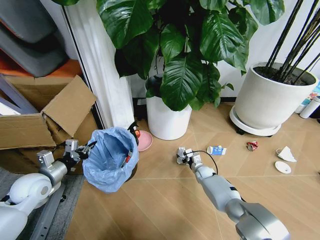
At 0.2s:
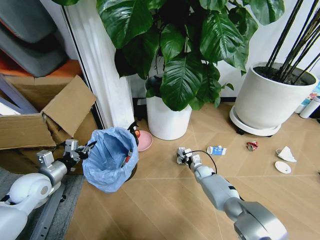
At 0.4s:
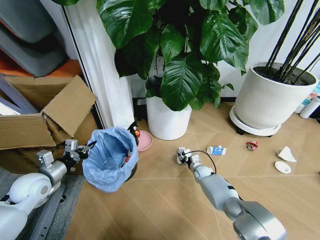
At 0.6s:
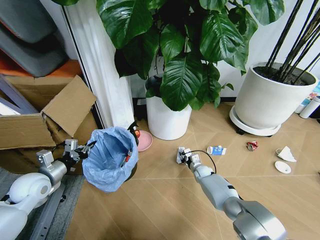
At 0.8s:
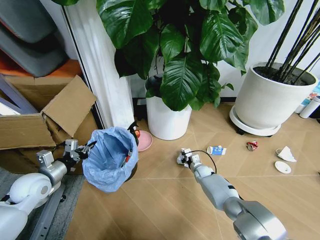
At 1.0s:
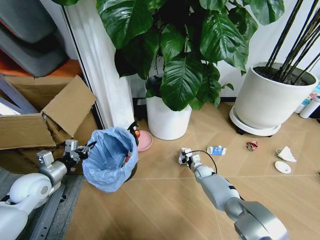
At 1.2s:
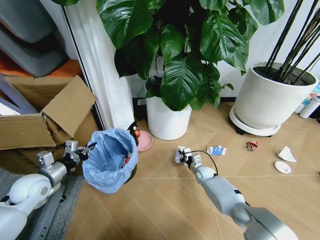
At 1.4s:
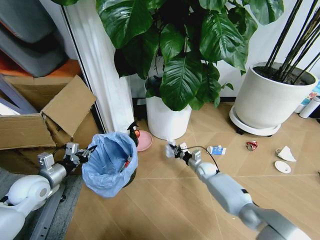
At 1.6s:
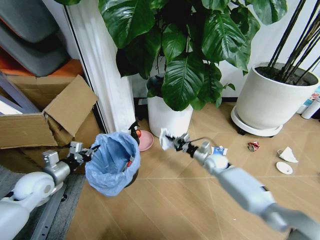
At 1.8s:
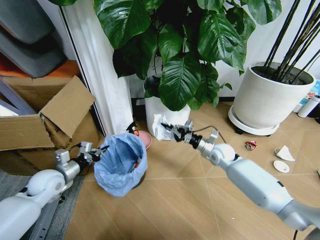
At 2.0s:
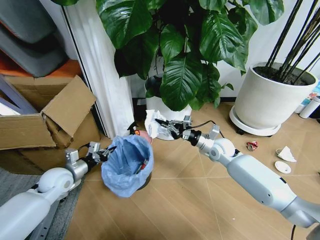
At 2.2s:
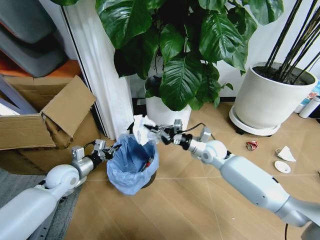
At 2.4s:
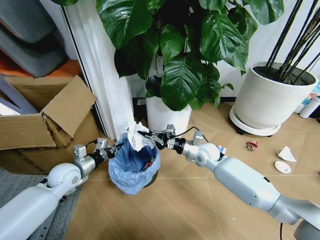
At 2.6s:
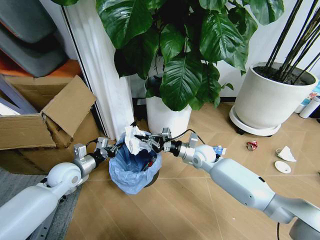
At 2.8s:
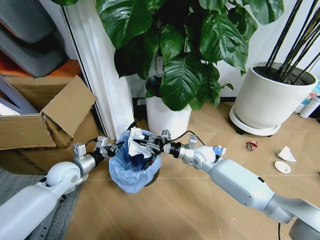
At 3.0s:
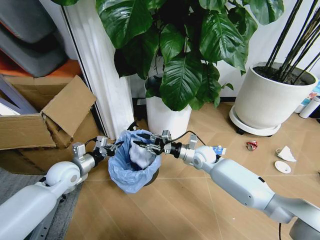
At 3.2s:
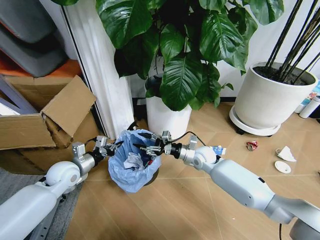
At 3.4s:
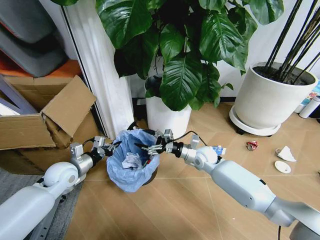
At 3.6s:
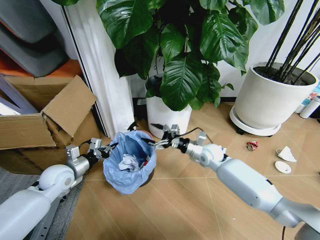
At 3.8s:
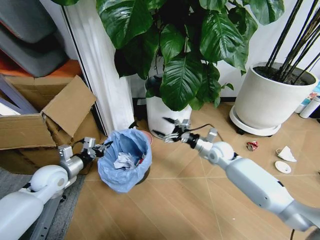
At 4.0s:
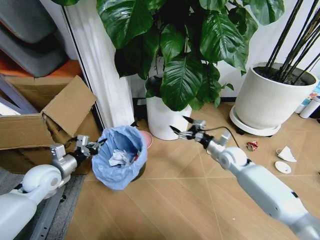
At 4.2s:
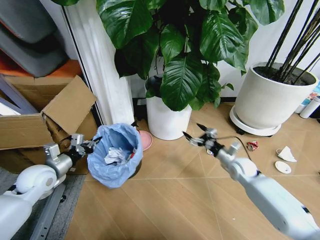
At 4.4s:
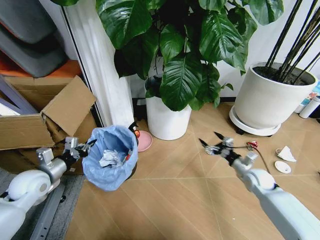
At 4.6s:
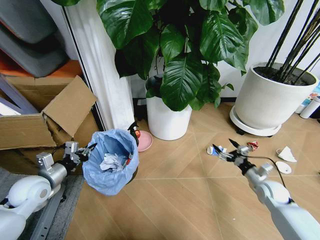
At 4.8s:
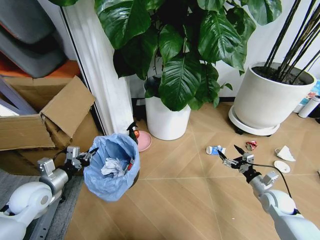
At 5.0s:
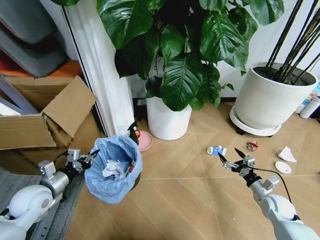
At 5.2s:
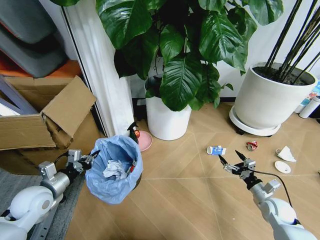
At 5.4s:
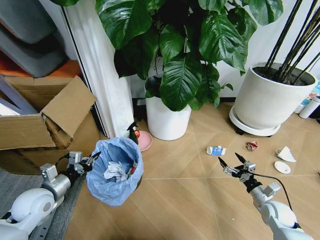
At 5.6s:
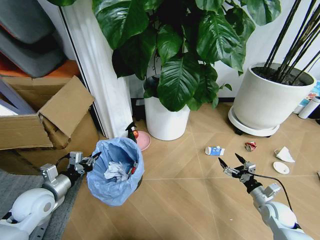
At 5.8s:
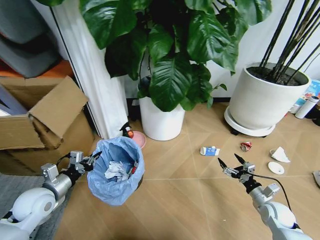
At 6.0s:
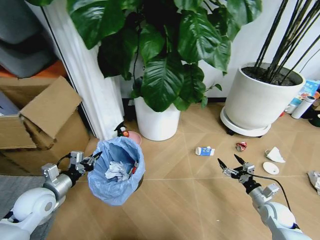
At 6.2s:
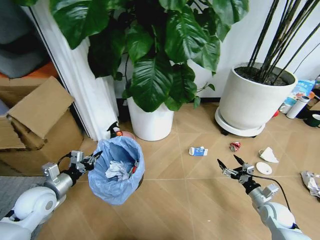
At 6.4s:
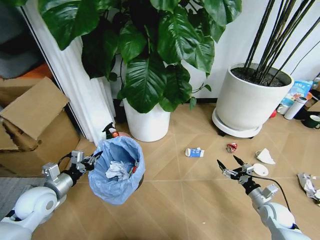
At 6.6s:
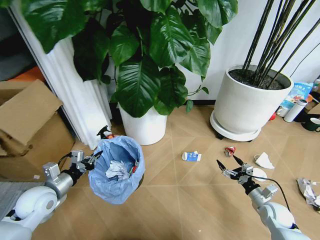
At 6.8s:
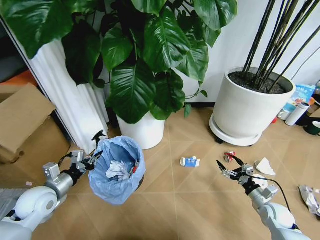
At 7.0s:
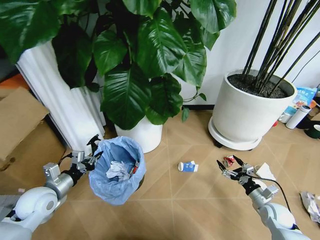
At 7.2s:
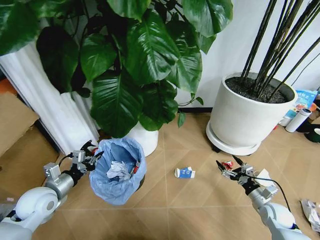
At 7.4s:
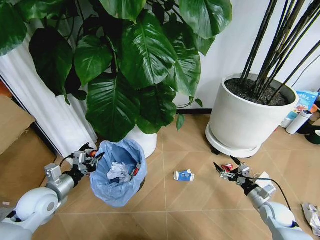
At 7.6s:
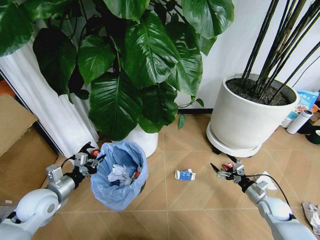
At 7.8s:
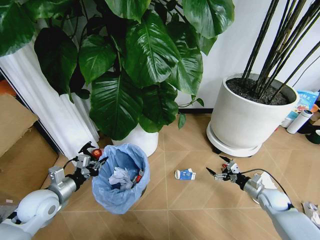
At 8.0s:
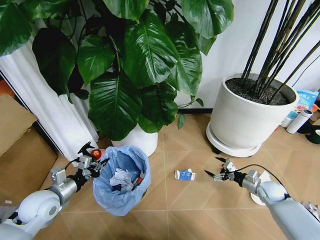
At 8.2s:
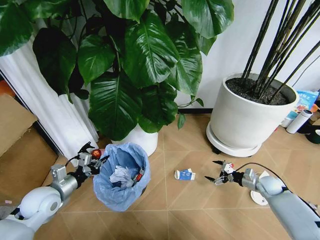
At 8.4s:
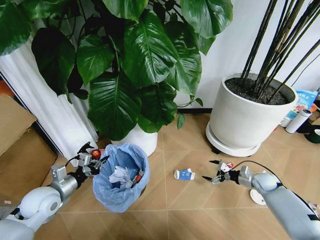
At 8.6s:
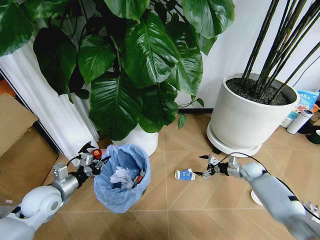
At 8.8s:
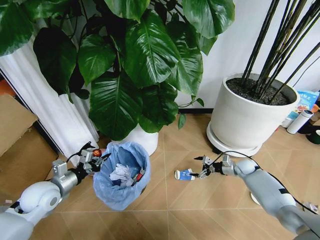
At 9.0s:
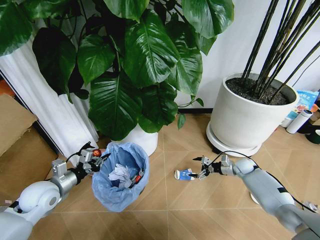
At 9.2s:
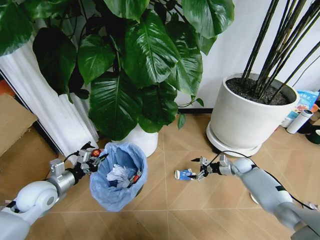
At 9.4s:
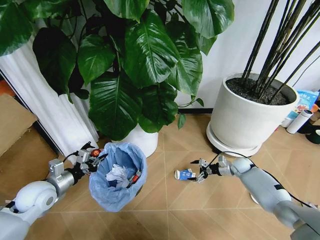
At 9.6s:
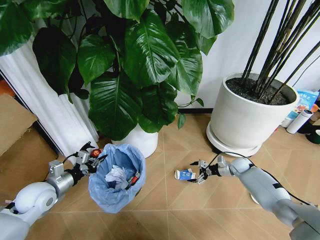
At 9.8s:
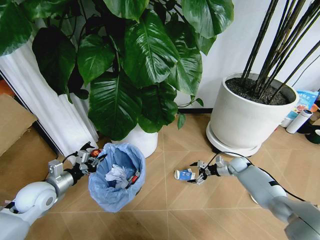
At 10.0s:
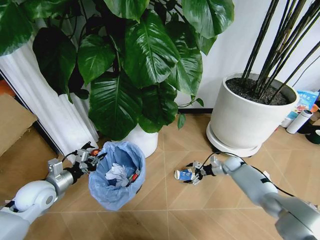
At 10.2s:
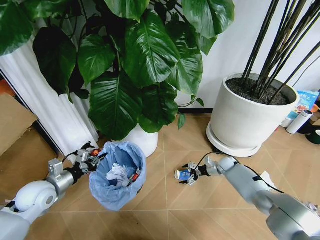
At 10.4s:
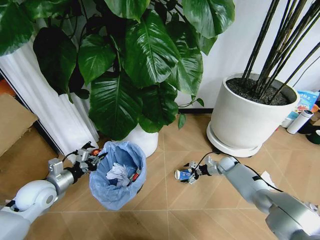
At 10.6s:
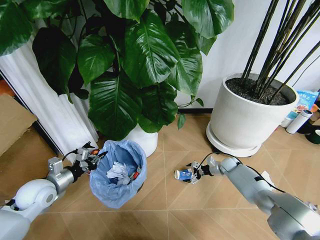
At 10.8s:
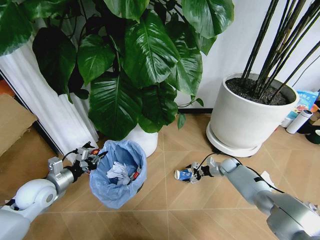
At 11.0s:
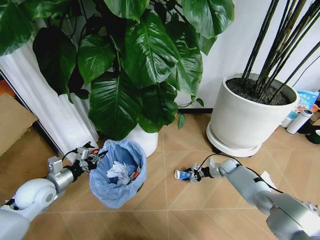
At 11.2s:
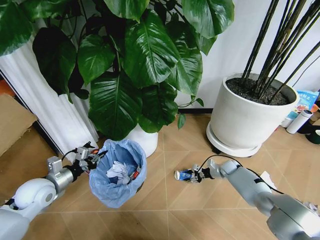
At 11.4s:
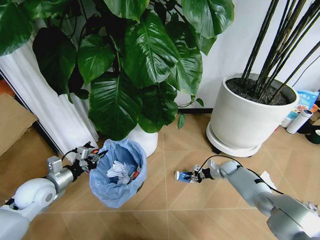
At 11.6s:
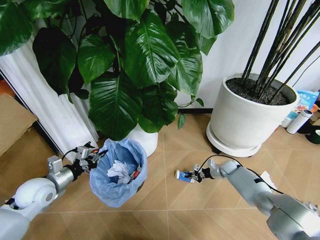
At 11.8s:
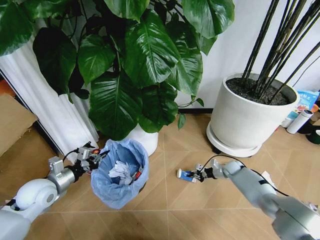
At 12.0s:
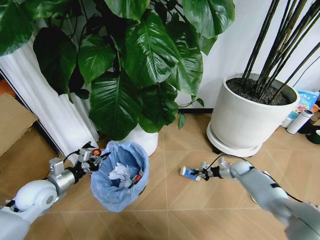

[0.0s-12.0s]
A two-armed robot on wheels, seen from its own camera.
Task of the whole recording: Pick up the trash bin and place the garbage on the floor into it.
0.0s to 1.6s: The right gripper shifts some 15 cm upward, and closes up.
1.6s to 3.0s: The left gripper heads to the right, covering some 5 cm. Meanwhile the right gripper is displaced to the left and upward by about 10 cm.
3.0s to 4.4s: The left gripper heads to the left, covering some 5 cm. The right gripper shifts about 25 cm to the right and backward, and opens up.
4.4s to 6.0s: The left gripper shifts by some 5 cm, while the right gripper travels backward and downward by some 15 cm.
7.6s to 9.0s: The right gripper moves forward, roughly 20 cm.
9.0s to 10.4s: The right gripper moves to the left, approximately 5 cm.
10.4s to 12.0s: The right gripper travels to the right by some 5 cm, and closes.

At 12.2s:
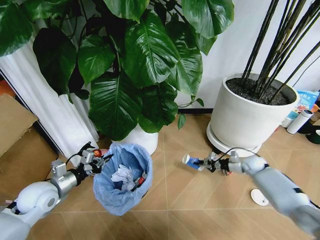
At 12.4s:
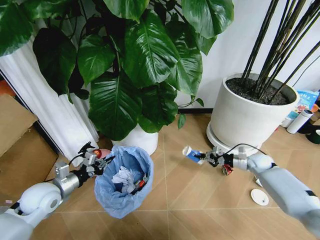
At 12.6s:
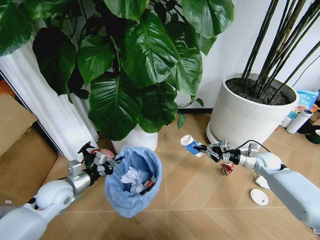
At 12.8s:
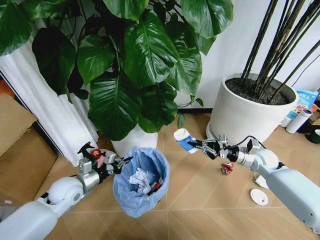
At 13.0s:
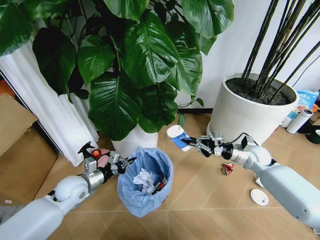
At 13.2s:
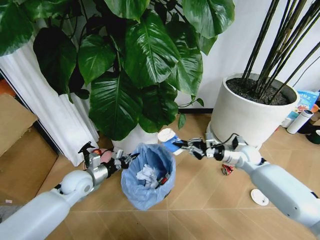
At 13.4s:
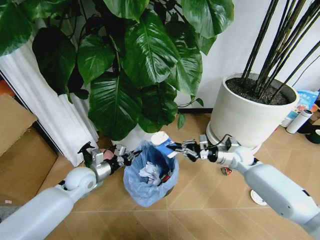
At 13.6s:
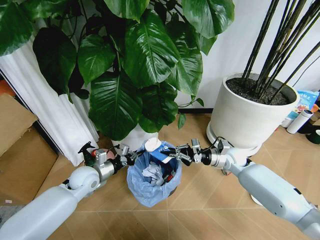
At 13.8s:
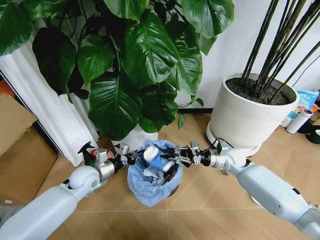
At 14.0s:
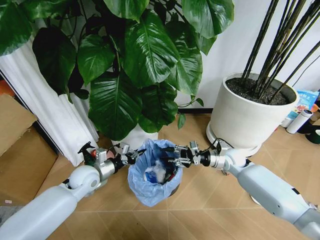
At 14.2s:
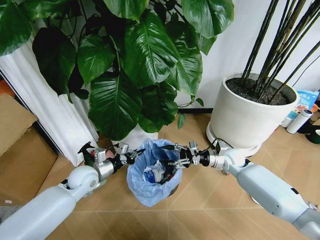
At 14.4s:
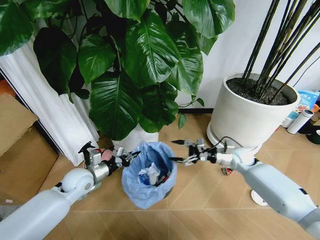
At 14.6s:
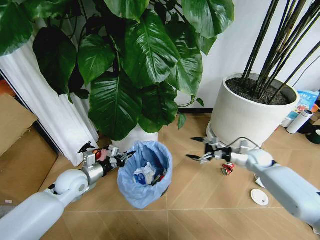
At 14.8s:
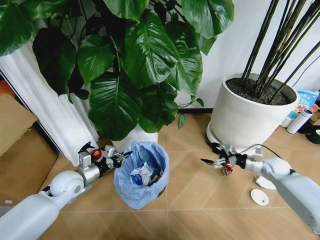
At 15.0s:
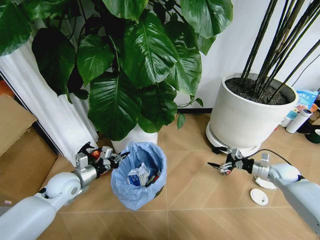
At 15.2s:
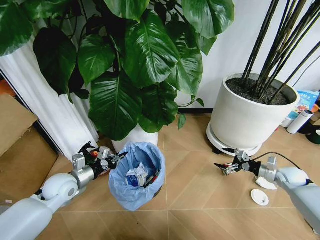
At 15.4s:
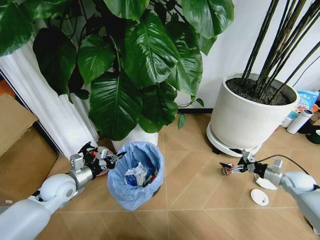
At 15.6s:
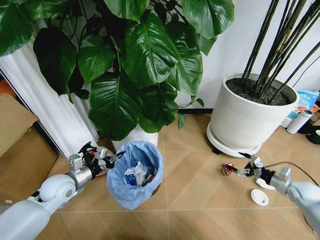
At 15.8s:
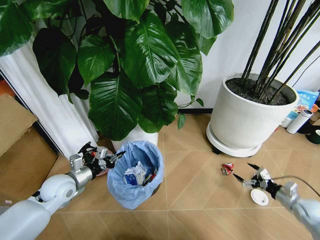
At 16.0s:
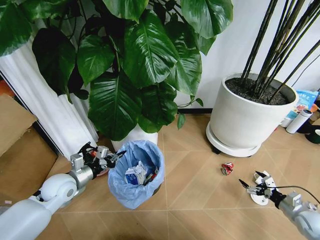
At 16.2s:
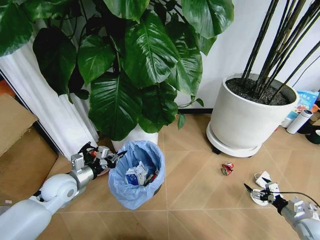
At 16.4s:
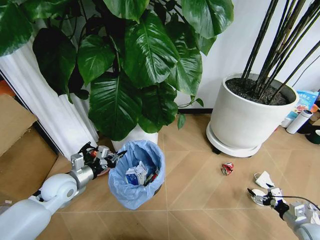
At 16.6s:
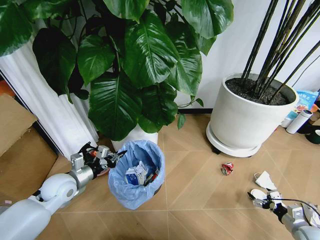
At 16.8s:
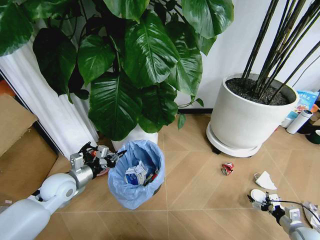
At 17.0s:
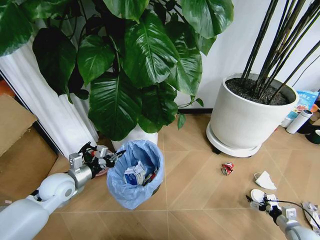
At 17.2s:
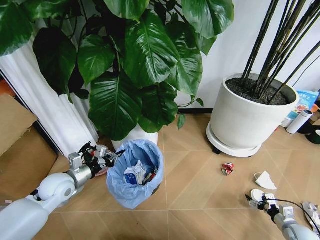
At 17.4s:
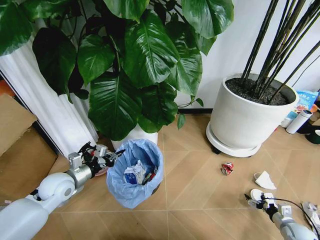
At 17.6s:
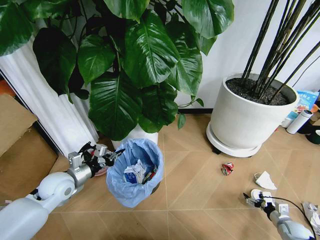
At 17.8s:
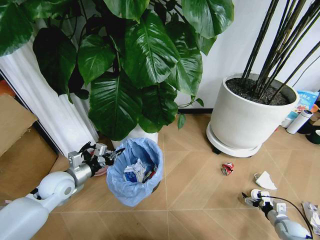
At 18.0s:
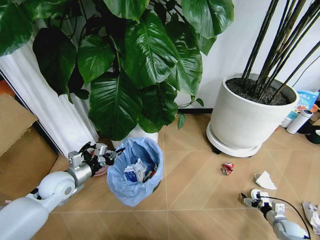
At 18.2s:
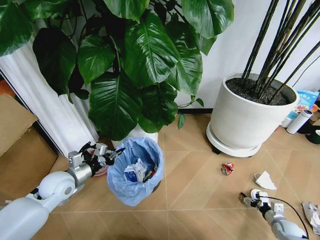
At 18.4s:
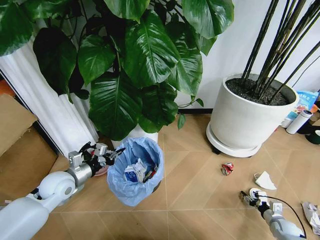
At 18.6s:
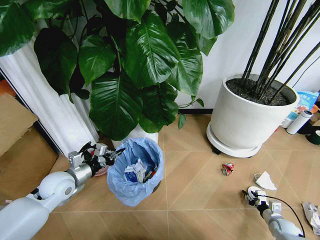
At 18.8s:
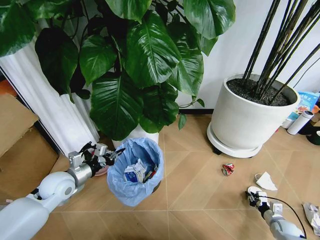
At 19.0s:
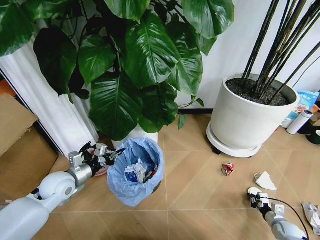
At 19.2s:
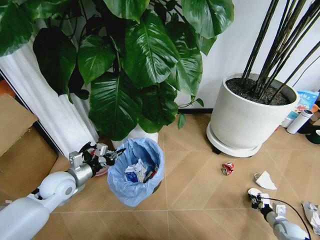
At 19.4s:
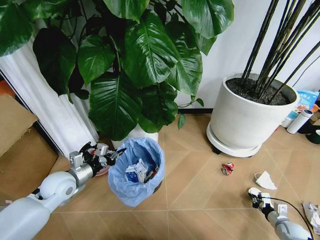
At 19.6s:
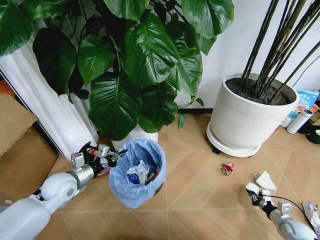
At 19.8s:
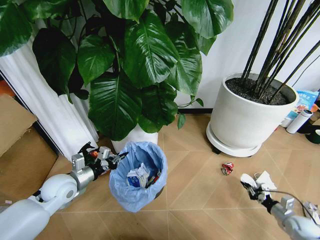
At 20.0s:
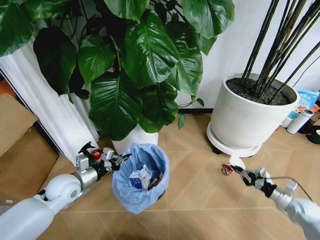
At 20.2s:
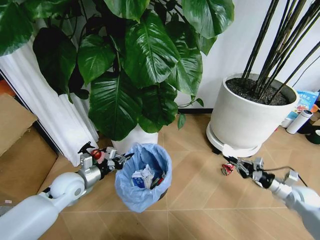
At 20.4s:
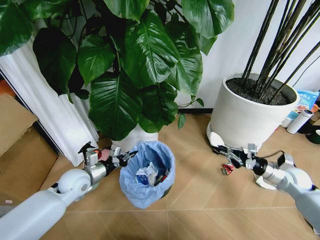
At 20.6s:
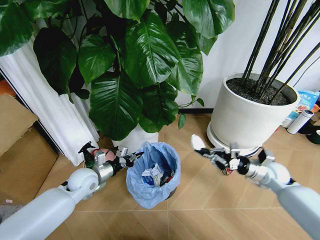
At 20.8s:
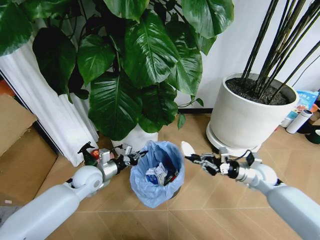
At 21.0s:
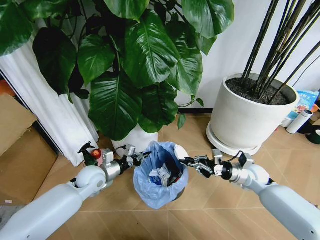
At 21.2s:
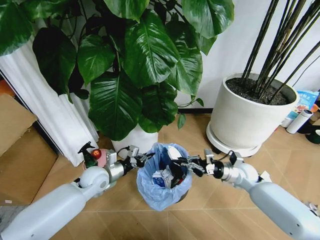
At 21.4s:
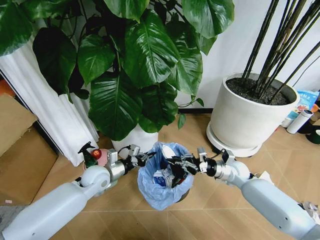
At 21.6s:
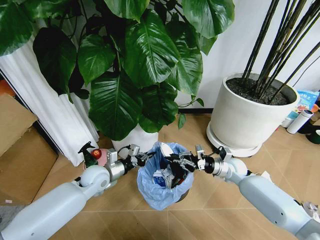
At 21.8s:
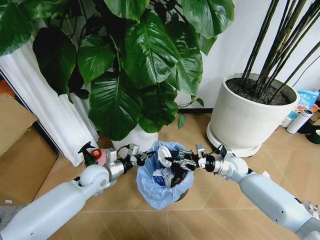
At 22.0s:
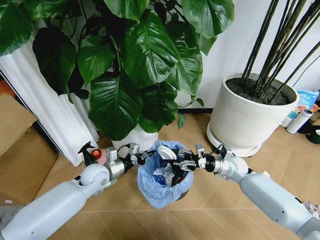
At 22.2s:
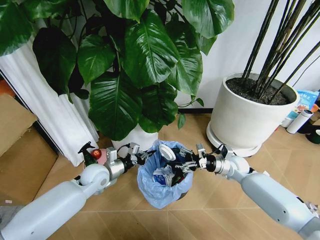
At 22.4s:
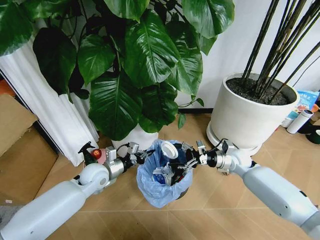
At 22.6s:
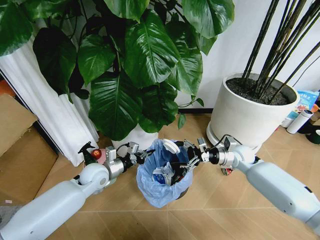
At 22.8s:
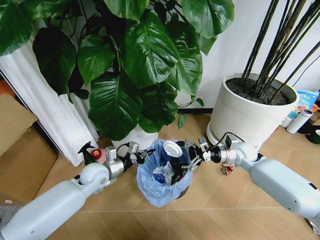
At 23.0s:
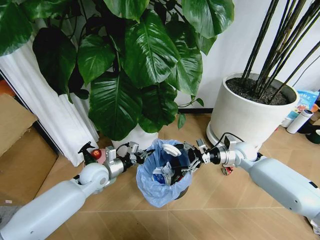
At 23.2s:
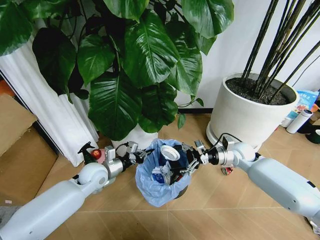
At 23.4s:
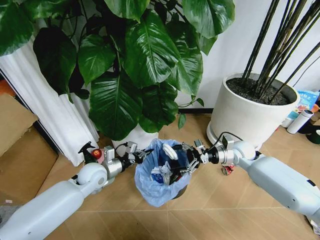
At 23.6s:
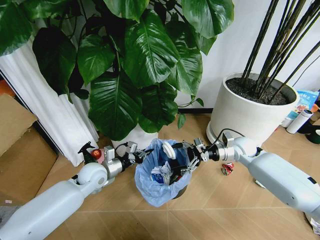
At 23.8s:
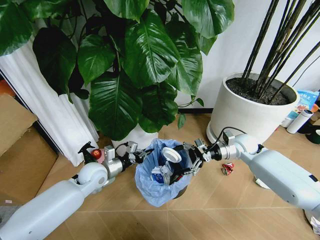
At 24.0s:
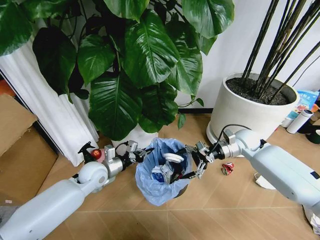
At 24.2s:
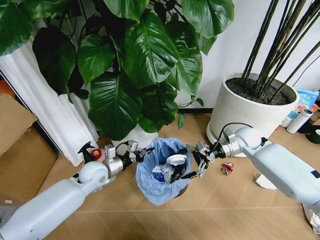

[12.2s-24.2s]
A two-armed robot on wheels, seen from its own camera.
Task of the whole recording: Pick up the trash bin and place the garbage on the floor into it.
12.2s to 13.8s: The left gripper travels to the right and forward by some 15 cm; the right gripper travels to the left and upward by some 15 cm.
13.8s to 15.2s: The right gripper shifts approximately 25 cm to the right, and opens up, while the left gripper is displaced to the left by roughly 5 cm.
15.2s to 16.6s: The right gripper is displaced backward and downward by some 20 cm.
16.6s to 18.2s: The right gripper is displaced downward by some 10 cm.
18.2s to 19.8s: The right gripper goes some 5 cm upward, and closes up.
19.8s to 21.2s: The right gripper is displaced to the left, forward and upward by about 30 cm, while the left gripper travels to the right by roughly 10 cm.
21.2s to 22.6s: The right gripper heads forward and upward, covering about 5 cm, and opens up.
22.6s to 24.2s: The right gripper moves upward, approximately 5 cm.
